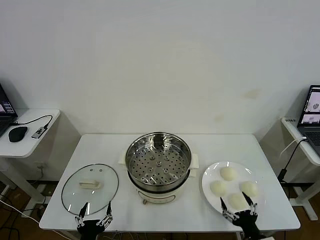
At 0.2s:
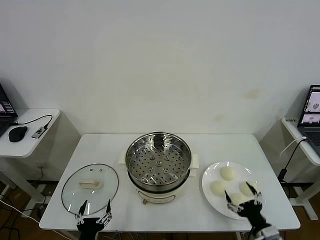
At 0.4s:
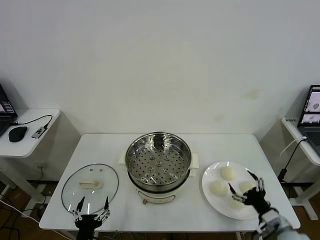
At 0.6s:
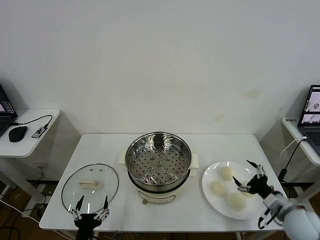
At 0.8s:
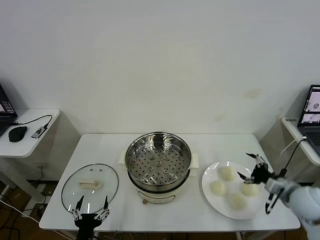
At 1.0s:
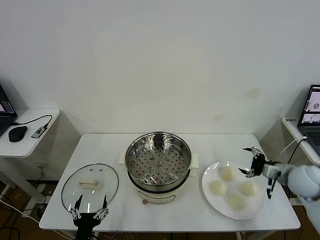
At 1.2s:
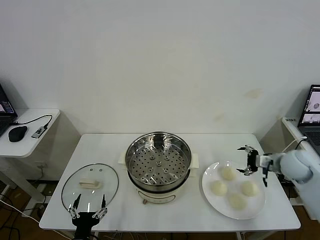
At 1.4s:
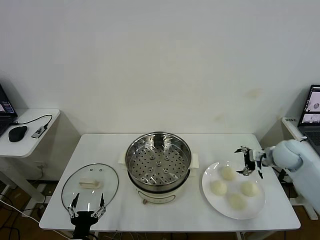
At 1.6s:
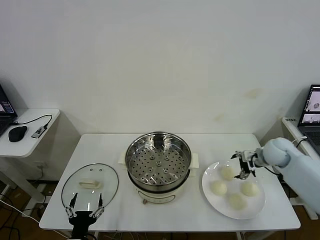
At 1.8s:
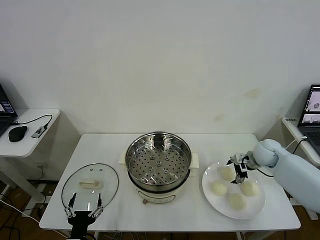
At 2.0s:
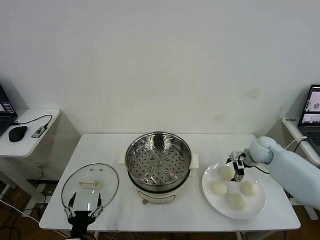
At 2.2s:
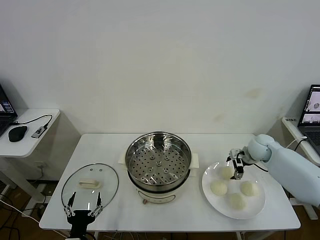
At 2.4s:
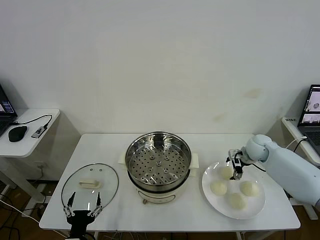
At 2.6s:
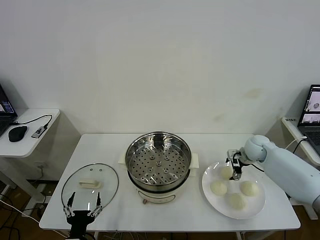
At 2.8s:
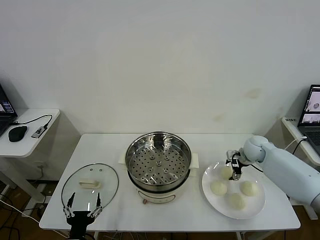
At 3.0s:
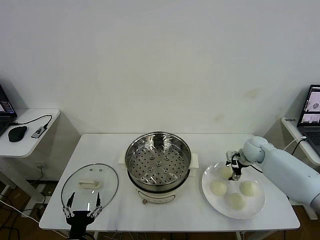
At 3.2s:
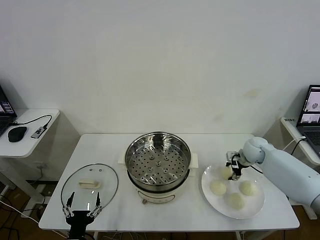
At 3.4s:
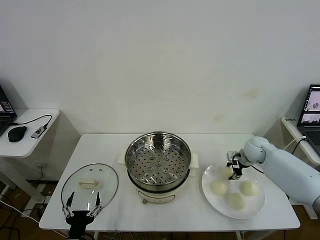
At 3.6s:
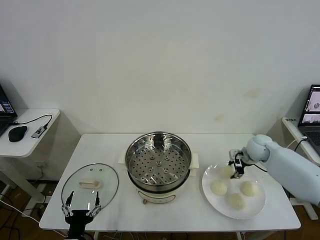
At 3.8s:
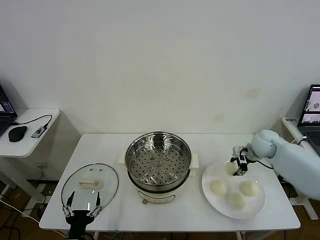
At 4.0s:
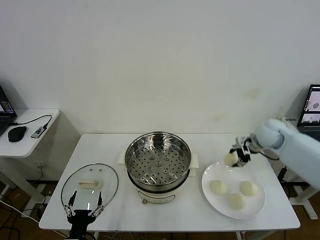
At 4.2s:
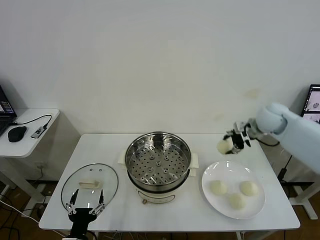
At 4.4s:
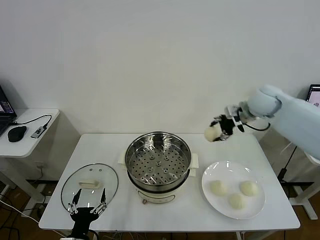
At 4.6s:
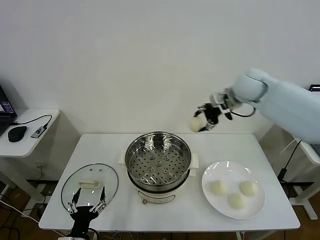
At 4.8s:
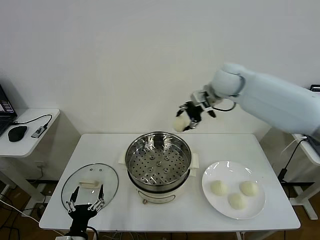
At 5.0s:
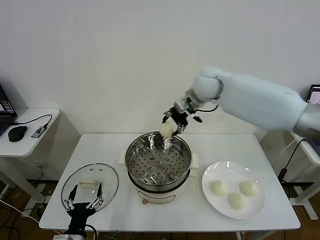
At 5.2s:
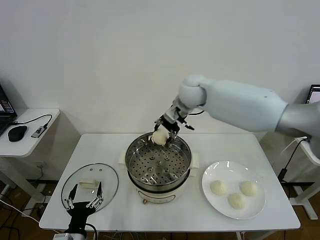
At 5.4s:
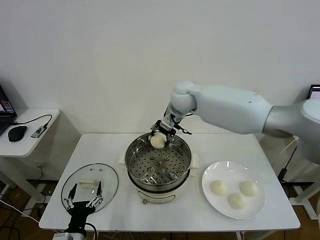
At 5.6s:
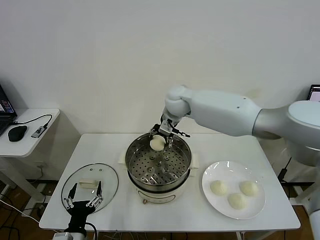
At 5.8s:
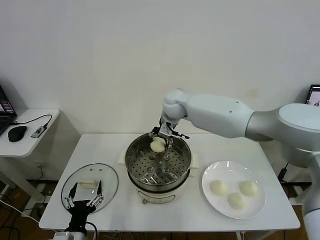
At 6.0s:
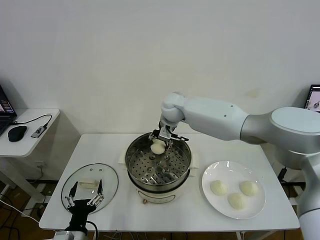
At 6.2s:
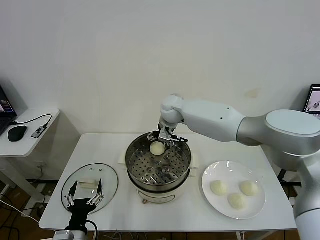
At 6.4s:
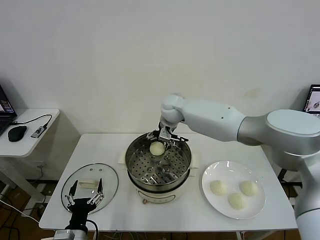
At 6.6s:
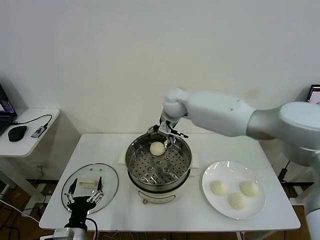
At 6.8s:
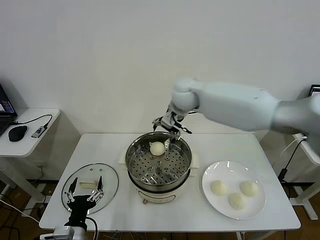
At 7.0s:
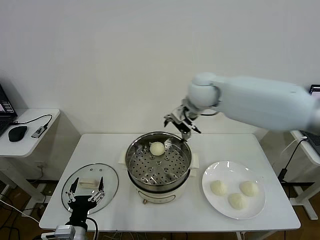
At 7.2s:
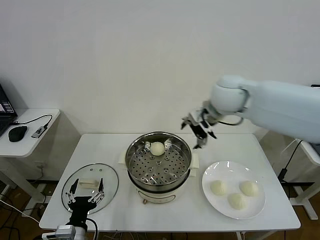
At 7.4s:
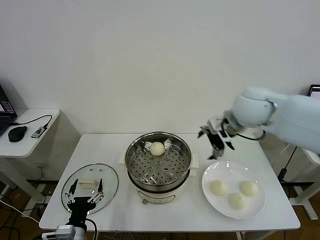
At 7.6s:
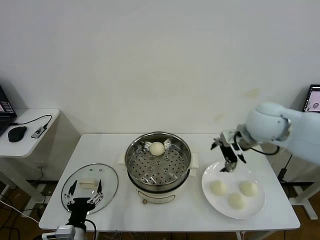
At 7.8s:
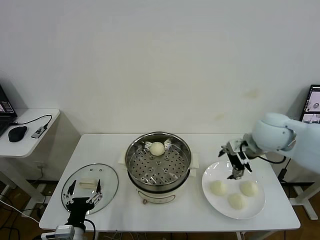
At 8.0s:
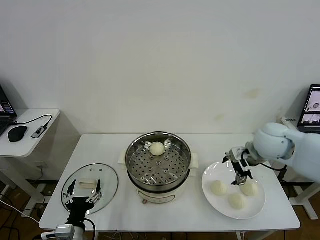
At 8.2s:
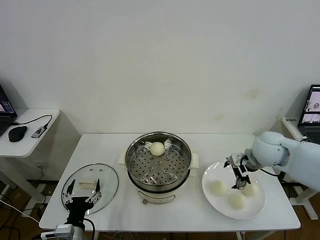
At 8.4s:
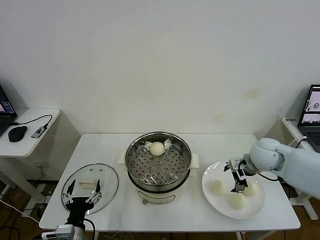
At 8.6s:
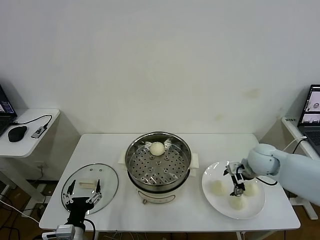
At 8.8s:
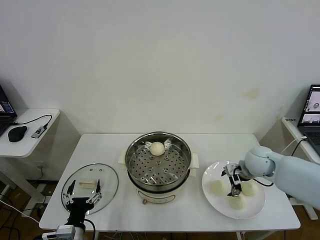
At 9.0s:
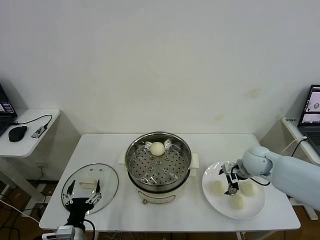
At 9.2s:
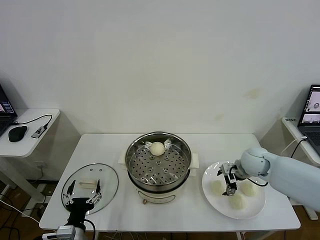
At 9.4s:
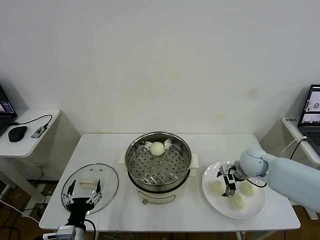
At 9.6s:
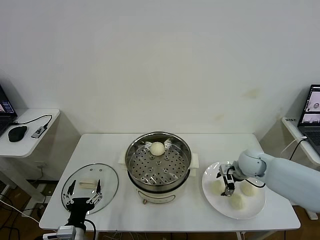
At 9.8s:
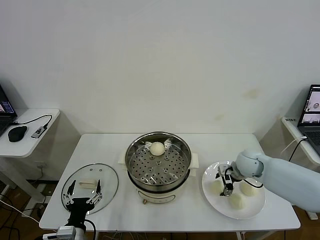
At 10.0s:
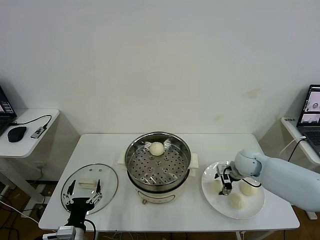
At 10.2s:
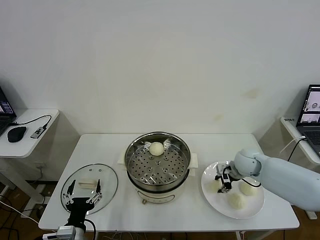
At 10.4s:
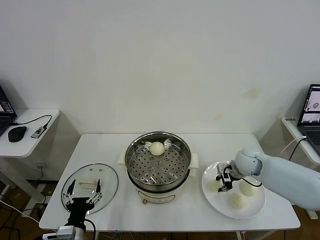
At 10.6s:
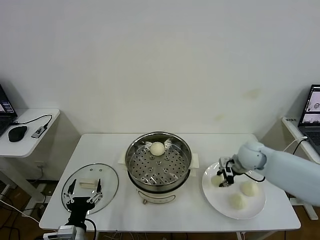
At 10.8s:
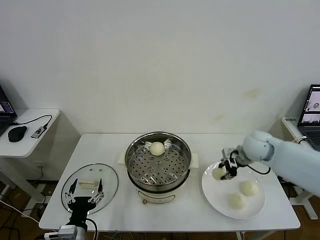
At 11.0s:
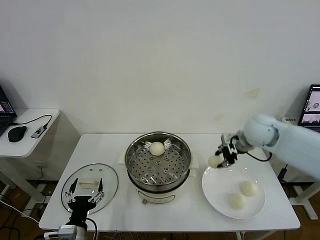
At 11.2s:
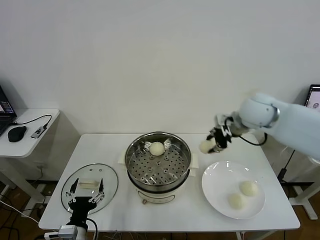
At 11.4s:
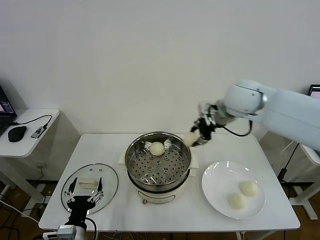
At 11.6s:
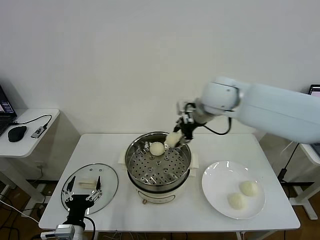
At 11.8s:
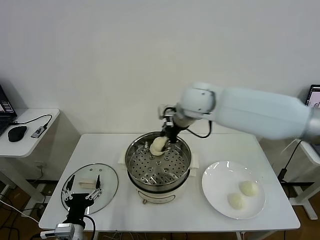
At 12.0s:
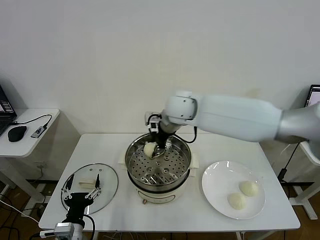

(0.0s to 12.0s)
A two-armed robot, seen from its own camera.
Task of the whole recording: take steamed baozi put them in steamer then cover it.
Step, 0.0s - 3.4s: Grasp the baozi in the plate with right gripper.
Step, 3.6s - 6.4s: Place the baozi on the steamer with right gripper.
Step, 6.6s - 10.4s: Grasp the baozi in the plate with right gripper.
1.6s - 3.0s: The right gripper ends up about 5 cm from where it was, and closes up.
3.0s - 4.4s: The right gripper goes roughly 25 cm upward.
4.4s - 6.0s: The right gripper goes approximately 25 cm to the left and downward.
6.0s - 7.6s: The right gripper goes approximately 30 cm to the right and backward, and opens.
7.6s - 9.0s: The right gripper goes roughly 20 cm downward.
9.0s - 10.4s: The right gripper closes its fingers.
10.4s - 12.0s: The right gripper goes about 35 cm to the left and upward.

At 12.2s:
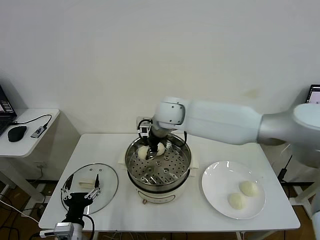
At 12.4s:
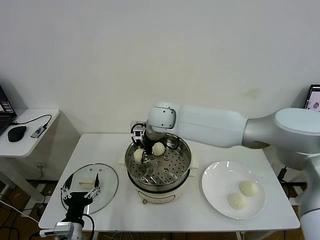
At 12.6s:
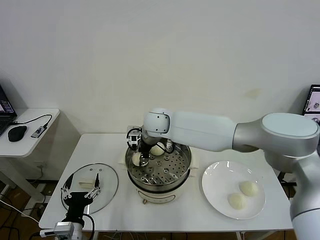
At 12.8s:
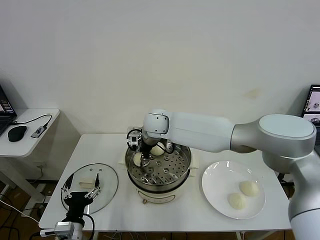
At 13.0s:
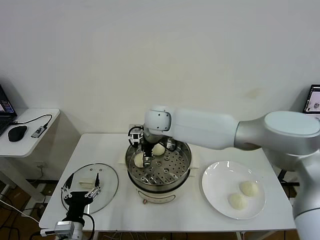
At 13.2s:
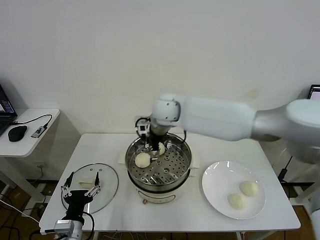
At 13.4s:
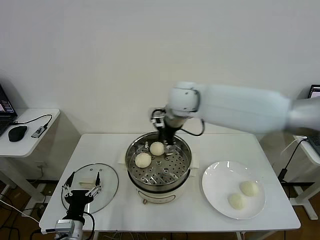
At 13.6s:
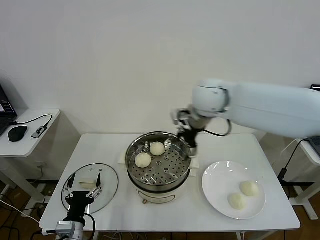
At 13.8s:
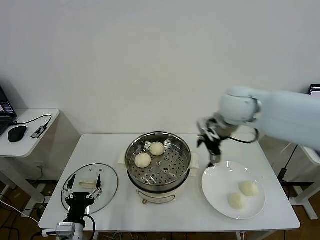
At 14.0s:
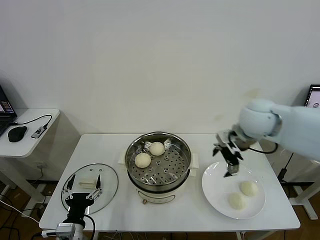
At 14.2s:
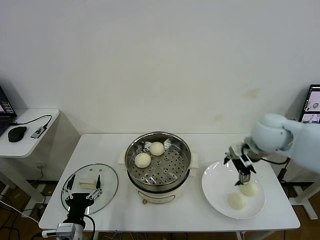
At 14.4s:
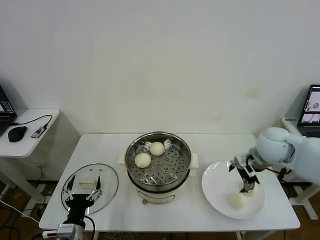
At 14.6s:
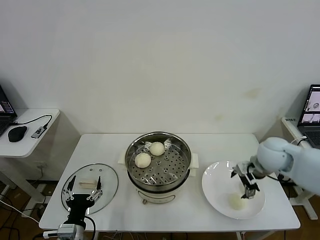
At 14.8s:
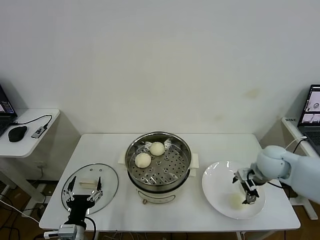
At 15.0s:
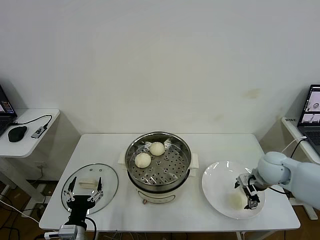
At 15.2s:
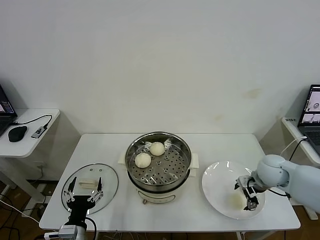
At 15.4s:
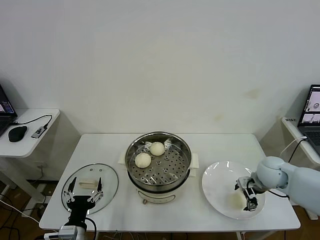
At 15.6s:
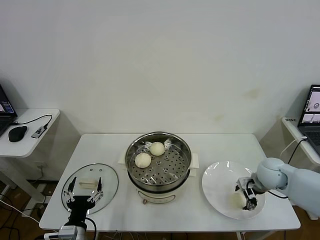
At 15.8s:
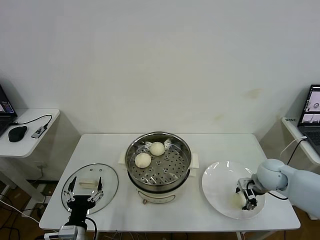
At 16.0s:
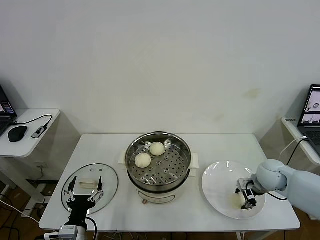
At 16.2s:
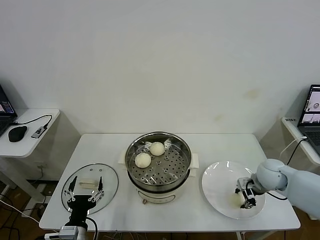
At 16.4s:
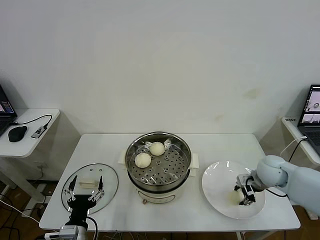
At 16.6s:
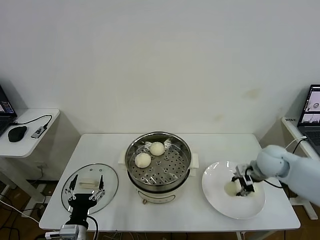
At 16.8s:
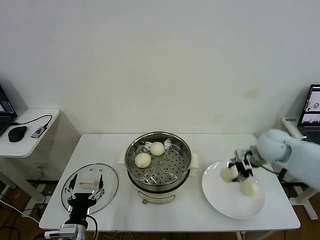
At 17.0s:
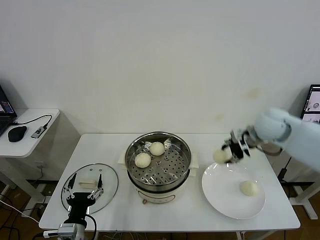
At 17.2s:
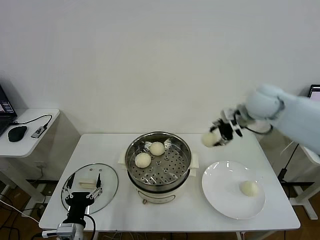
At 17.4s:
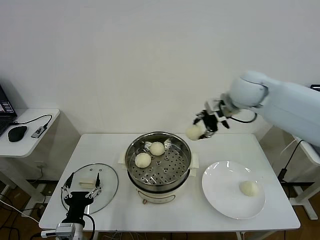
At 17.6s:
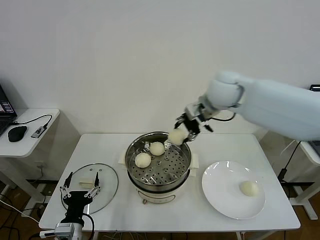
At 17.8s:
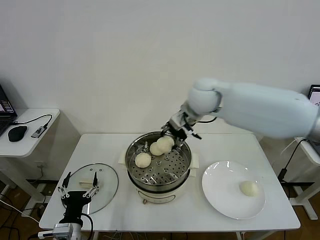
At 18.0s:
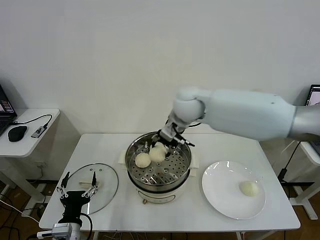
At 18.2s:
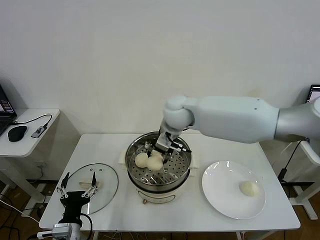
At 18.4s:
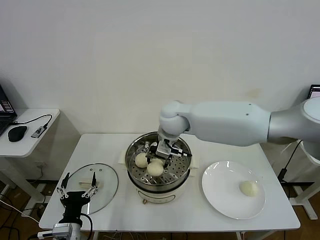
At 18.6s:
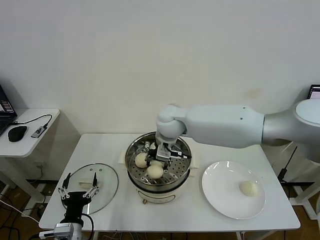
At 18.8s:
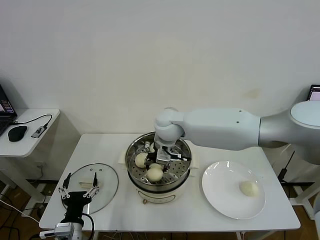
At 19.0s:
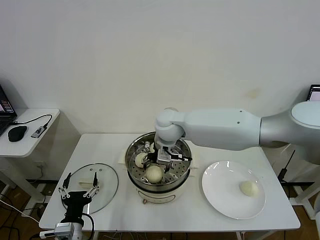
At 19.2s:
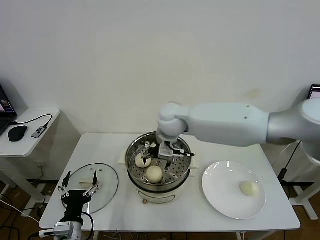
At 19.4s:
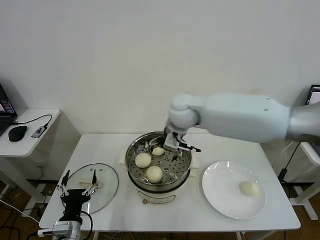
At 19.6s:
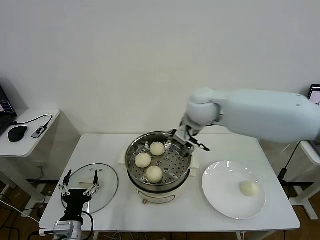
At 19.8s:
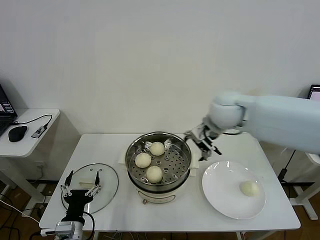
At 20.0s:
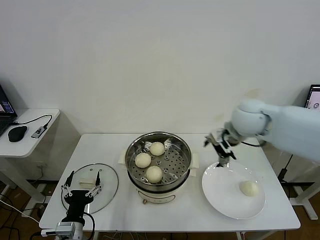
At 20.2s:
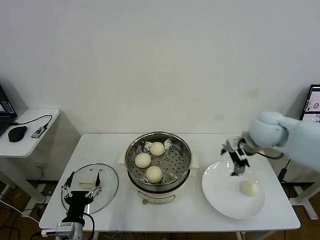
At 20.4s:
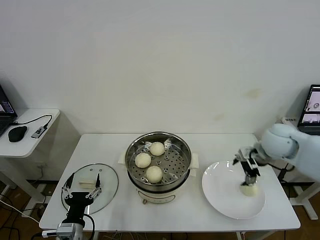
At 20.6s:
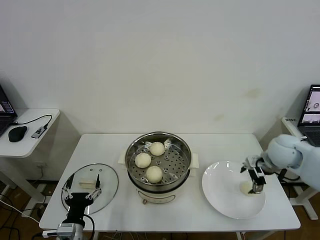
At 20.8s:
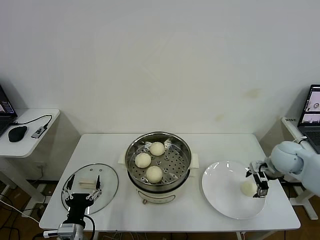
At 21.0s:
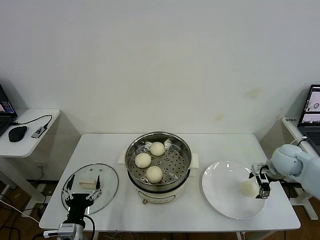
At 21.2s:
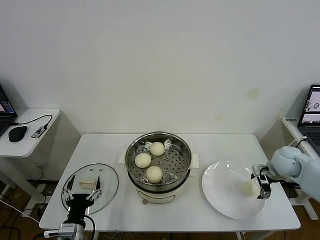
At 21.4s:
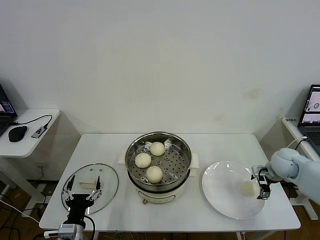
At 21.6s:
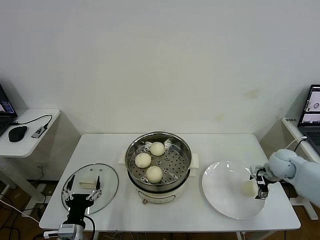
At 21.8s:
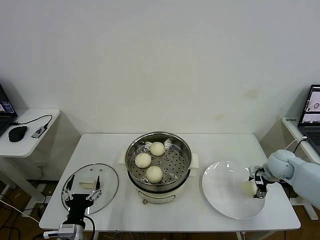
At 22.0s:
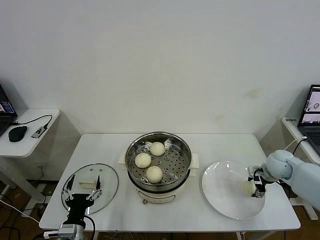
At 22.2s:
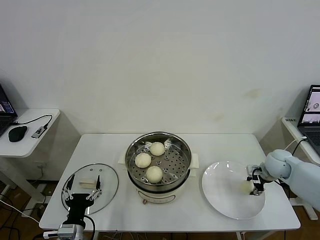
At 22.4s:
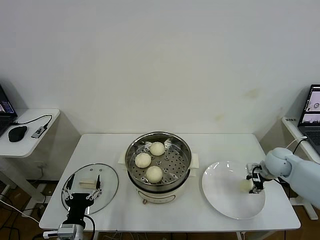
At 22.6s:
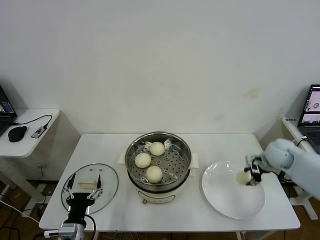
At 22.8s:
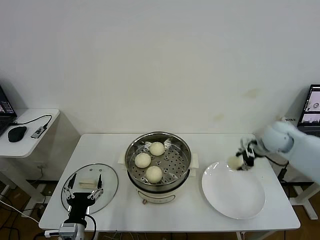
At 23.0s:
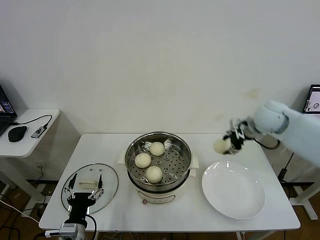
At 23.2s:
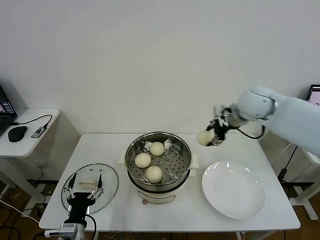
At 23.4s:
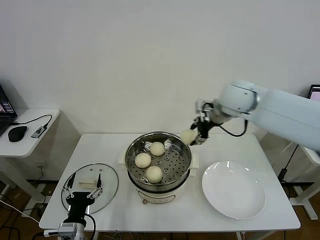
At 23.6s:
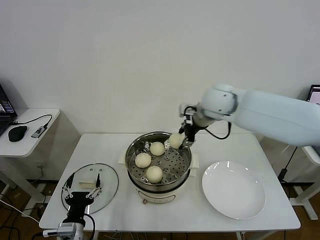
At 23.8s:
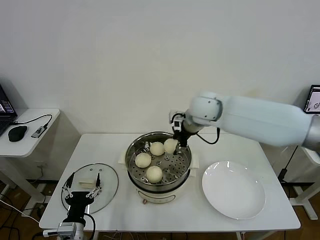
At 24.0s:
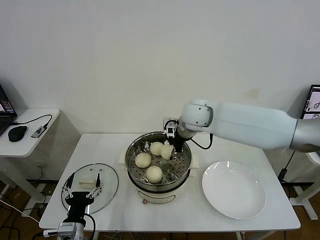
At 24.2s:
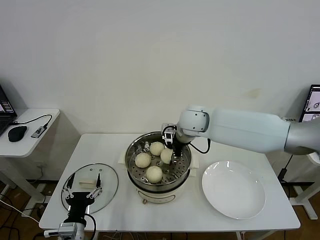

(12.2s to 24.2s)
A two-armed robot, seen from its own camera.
Task of the whole recording: take steamed baozi put them in steamer then cover it.
Step, 13.2s - 16.2s: Grasp the baozi in the plate with right gripper.
Step, 16.4s - 19.0s: Place the baozi on the steamer with right gripper.
Step, 19.4s - 22.2s: Grasp the baozi in the plate with right gripper.
12.2s - 13.8s: The right gripper goes approximately 20 cm to the right, and opens its fingers.
13.8s - 15.2s: The right gripper is displaced downward and to the right by some 25 cm.
15.2s - 16.6s: The right gripper closes its fingers.
16.6s - 18.2s: The right gripper is displaced to the left by approximately 30 cm.
18.2s - 19.8s: The right gripper is displaced to the right by about 15 cm, and opens its fingers.
19.8s - 21.2s: The right gripper moves to the right and downward, about 30 cm.
21.2s - 22.6s: The right gripper closes its fingers.
22.6s - 24.2s: The right gripper shifts roughly 30 cm to the left.
